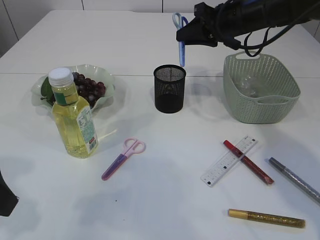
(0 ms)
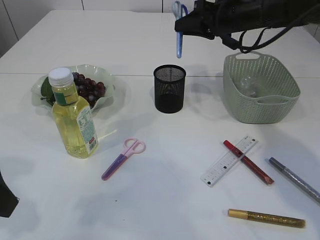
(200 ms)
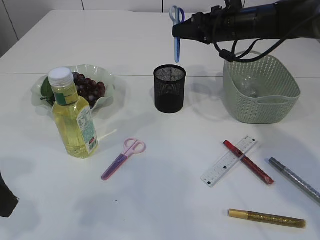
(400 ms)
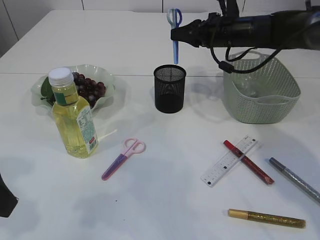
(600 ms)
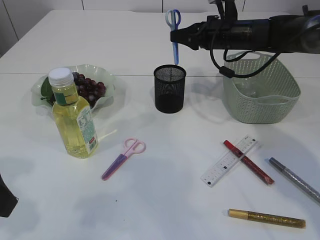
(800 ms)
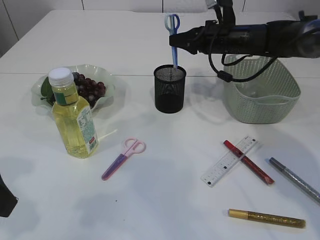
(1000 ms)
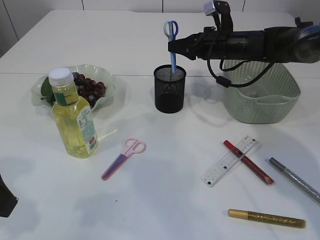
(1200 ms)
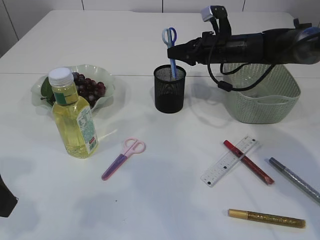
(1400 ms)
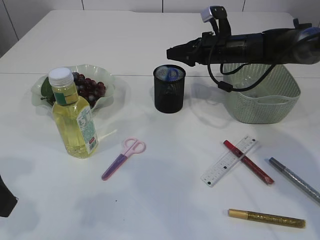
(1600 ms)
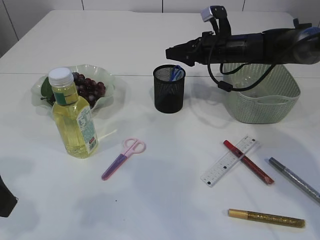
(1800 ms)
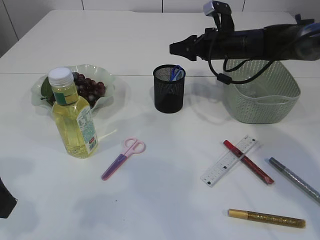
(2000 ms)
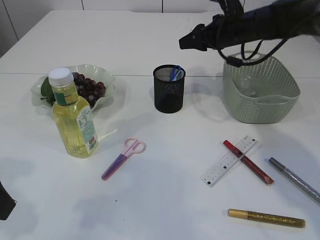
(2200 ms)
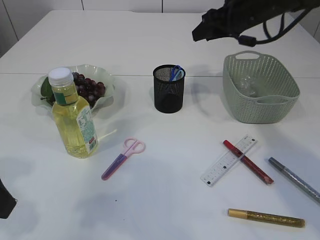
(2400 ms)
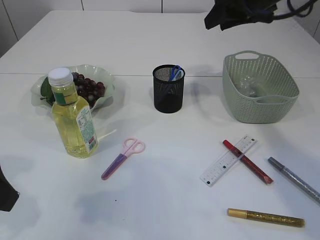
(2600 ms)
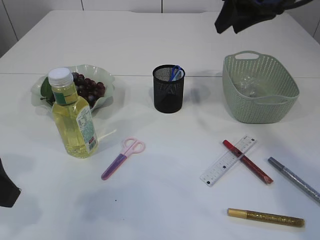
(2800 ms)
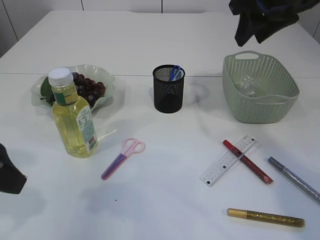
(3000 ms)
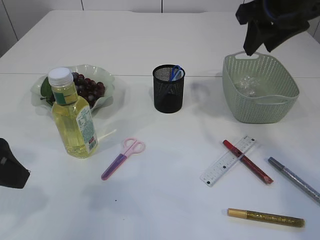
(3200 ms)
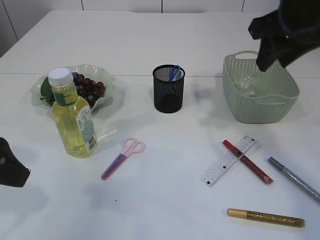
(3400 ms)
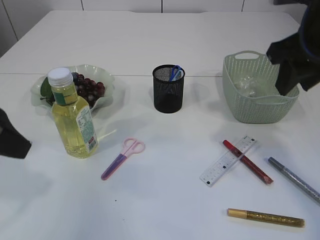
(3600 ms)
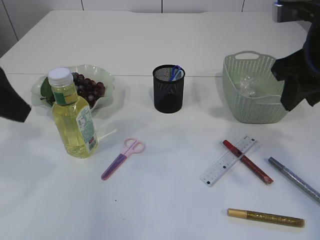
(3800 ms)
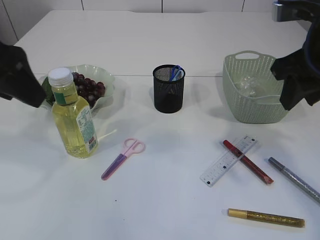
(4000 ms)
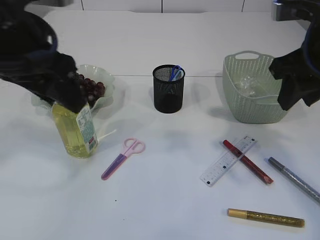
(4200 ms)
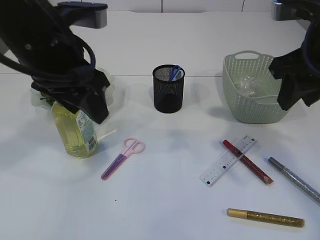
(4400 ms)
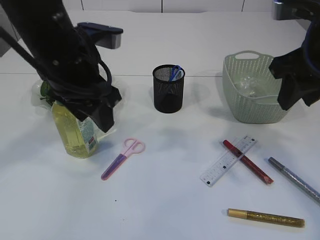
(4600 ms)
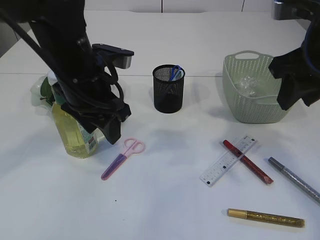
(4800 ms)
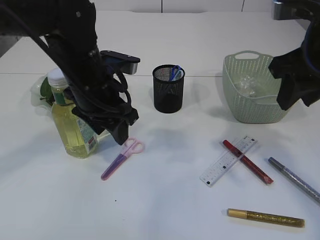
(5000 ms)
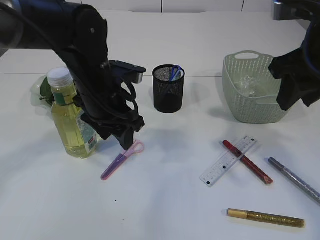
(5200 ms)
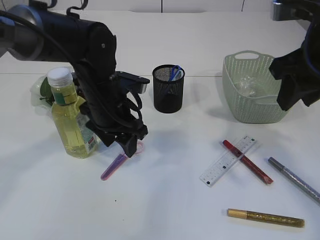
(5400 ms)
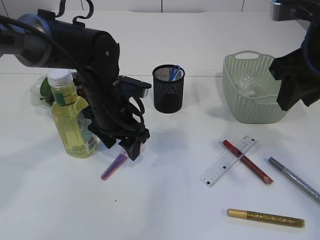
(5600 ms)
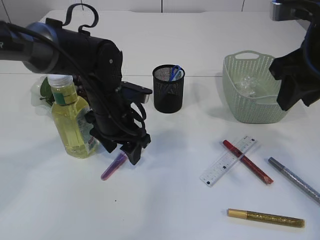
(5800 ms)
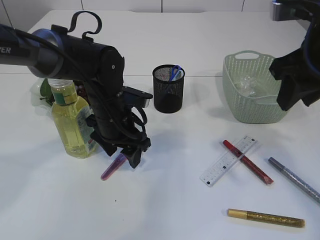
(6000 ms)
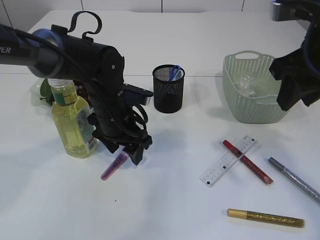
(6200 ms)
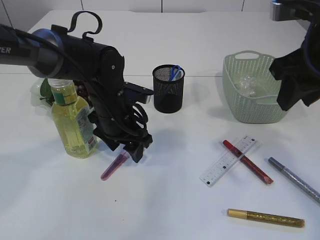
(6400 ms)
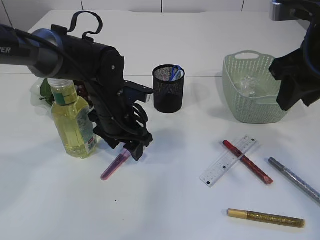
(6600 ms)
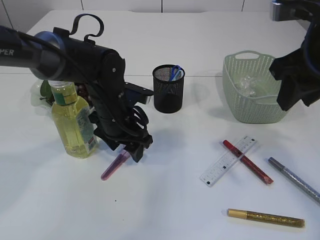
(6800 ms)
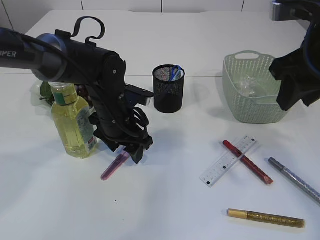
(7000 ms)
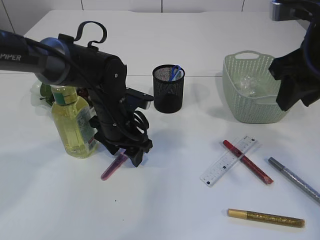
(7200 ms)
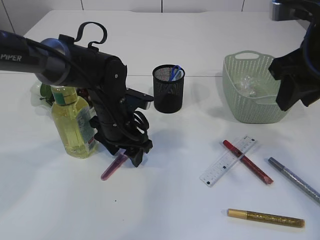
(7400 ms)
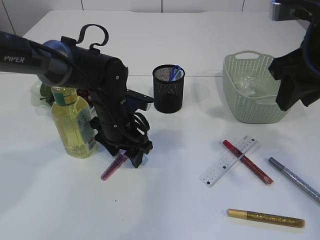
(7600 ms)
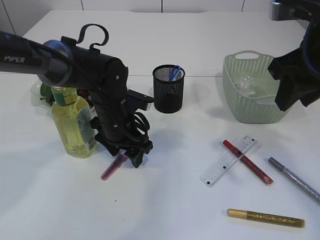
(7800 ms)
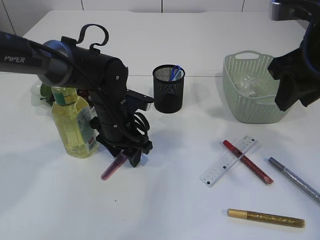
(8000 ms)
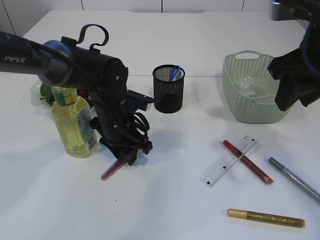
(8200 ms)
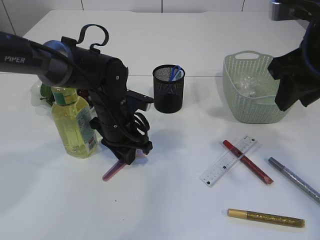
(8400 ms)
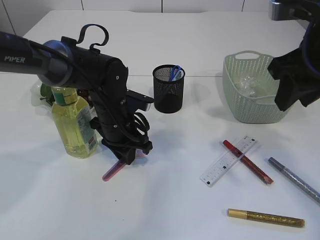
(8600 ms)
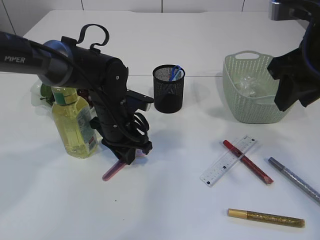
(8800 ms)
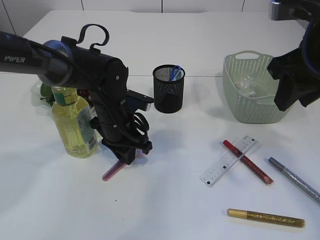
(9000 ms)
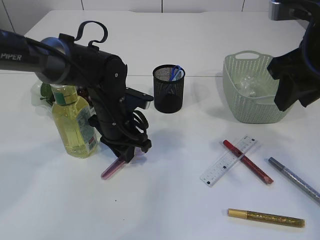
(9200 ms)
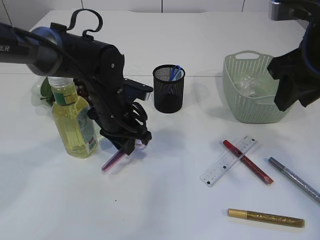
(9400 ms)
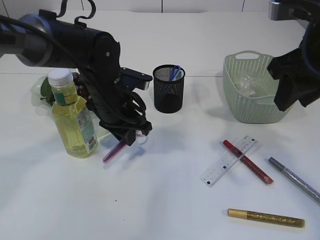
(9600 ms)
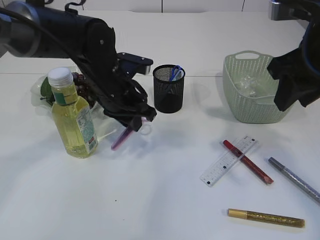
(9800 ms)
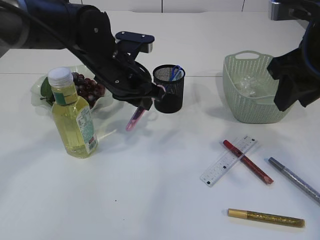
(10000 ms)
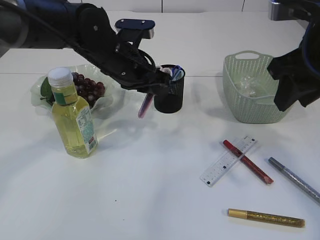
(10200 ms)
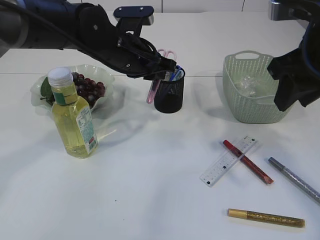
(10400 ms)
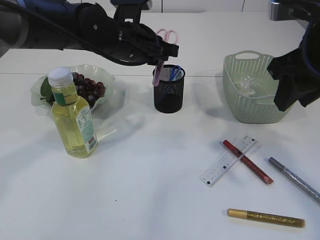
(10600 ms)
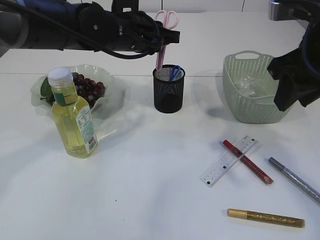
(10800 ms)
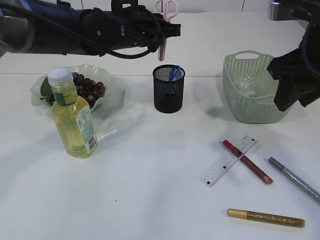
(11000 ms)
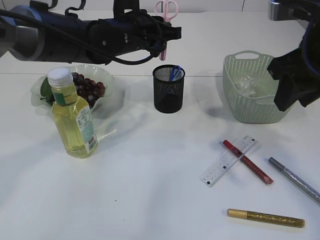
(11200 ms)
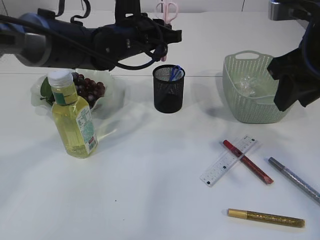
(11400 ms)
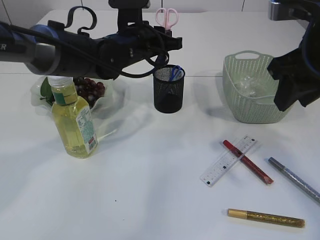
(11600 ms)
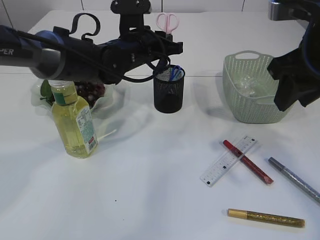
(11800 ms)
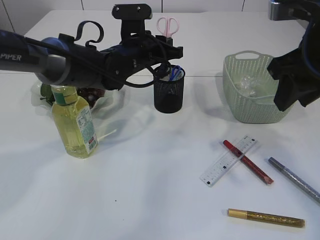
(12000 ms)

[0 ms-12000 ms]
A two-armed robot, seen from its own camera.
Step, 0 ms to 1800 ms: Place the blue knife into the pen holder.
Step, 2000 ms to 9800 ms: pick up the pink scissors.
0 ms to 1600 ms: The right gripper goes some 5 cm downward.
1600 ms to 3000 ms: The right gripper goes roughly 20 cm upward and backward.
3000 ms to 4400 ms: The right gripper moves backward, about 10 cm, while the left gripper shifts about 15 cm to the right and forward.
4400 ms to 6000 ms: The left gripper moves downward and forward, roughly 20 cm.
6000 ms to 7600 ms: The grippers move only a little.
7600 ms to 9000 ms: The left gripper closes its fingers.
9000 ms to 10400 ms: The left gripper is displaced upward by roughly 10 cm.
10400 ms to 12000 ms: The left gripper shifts by about 5 cm.

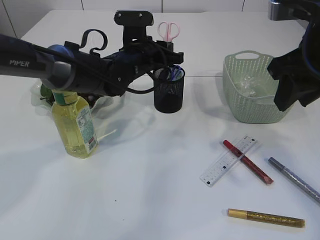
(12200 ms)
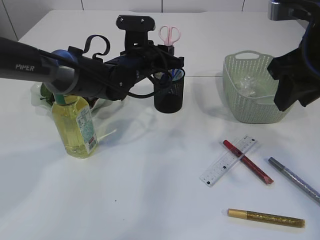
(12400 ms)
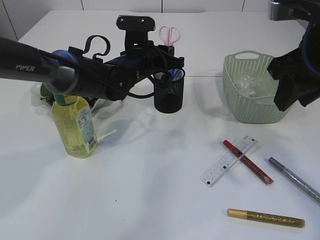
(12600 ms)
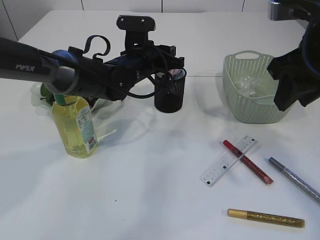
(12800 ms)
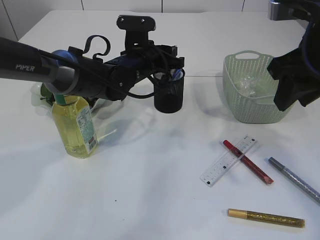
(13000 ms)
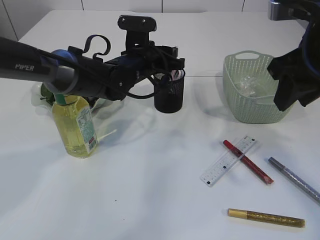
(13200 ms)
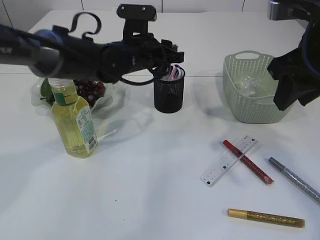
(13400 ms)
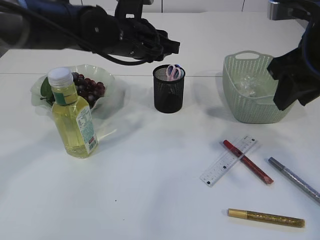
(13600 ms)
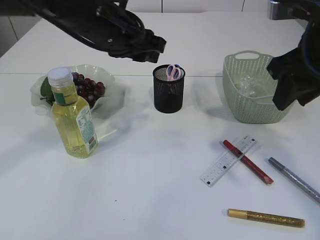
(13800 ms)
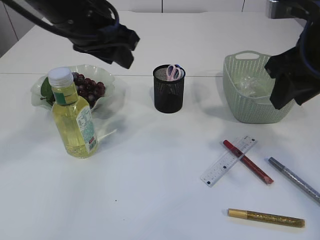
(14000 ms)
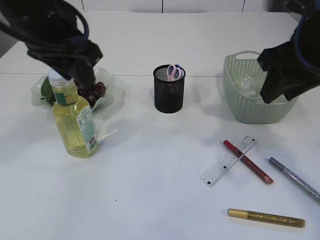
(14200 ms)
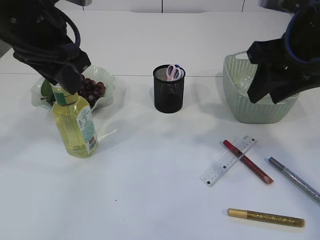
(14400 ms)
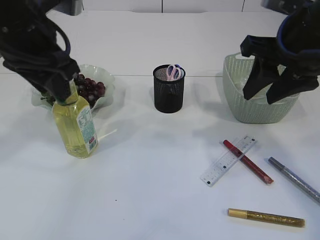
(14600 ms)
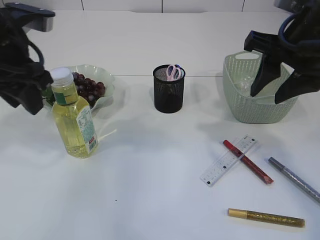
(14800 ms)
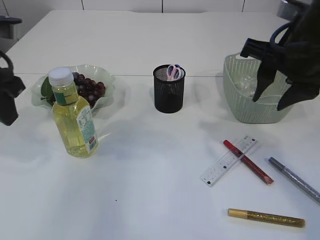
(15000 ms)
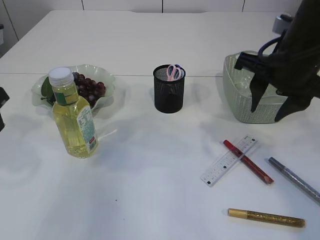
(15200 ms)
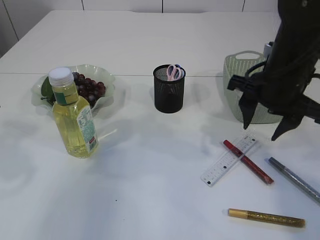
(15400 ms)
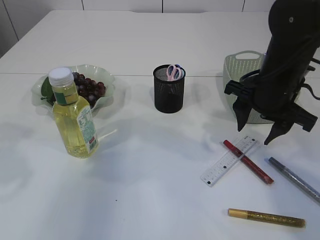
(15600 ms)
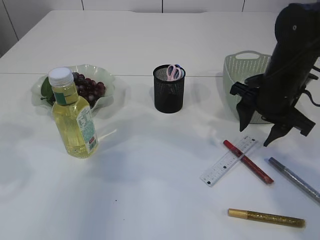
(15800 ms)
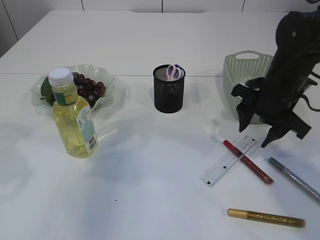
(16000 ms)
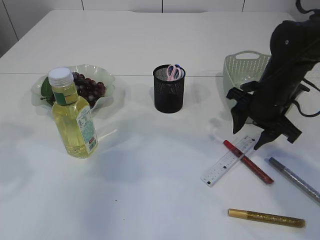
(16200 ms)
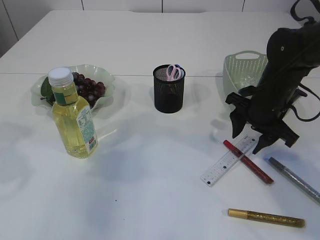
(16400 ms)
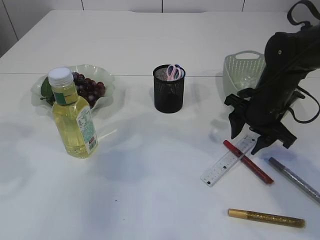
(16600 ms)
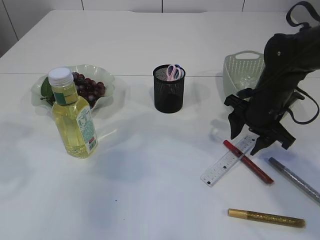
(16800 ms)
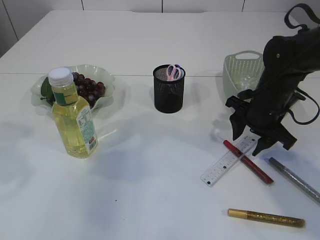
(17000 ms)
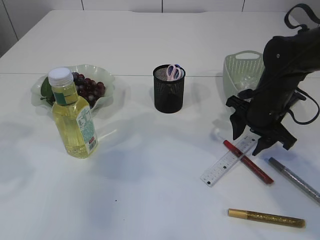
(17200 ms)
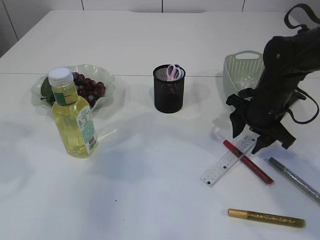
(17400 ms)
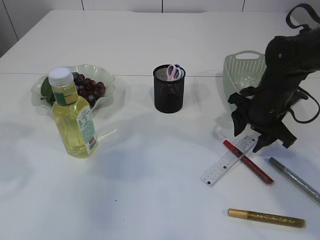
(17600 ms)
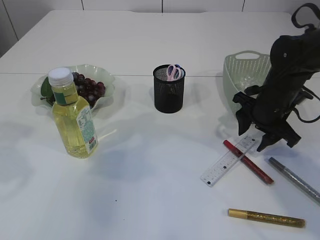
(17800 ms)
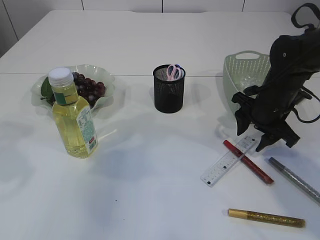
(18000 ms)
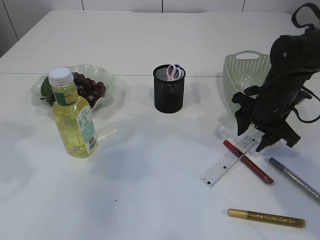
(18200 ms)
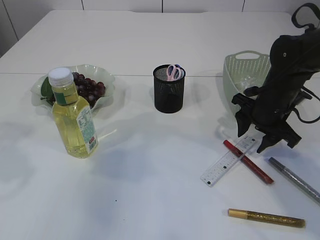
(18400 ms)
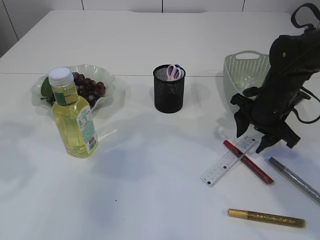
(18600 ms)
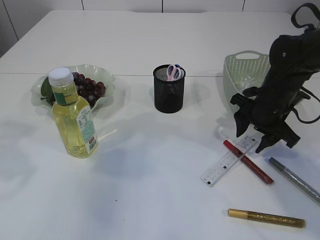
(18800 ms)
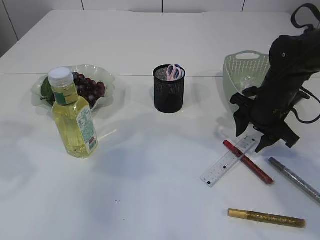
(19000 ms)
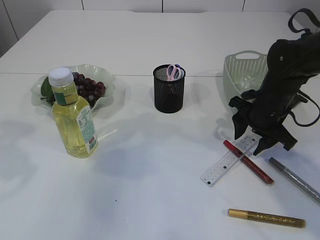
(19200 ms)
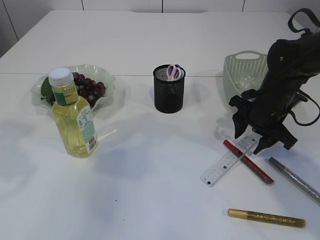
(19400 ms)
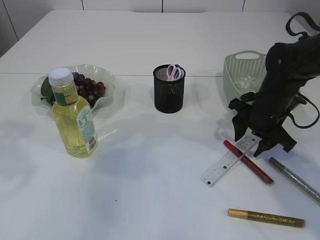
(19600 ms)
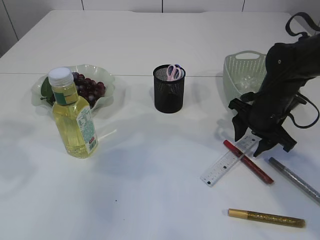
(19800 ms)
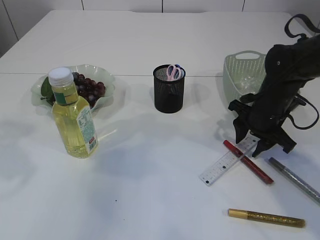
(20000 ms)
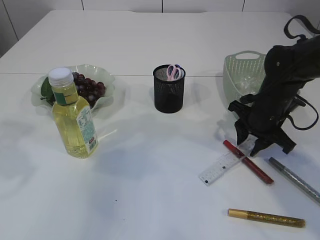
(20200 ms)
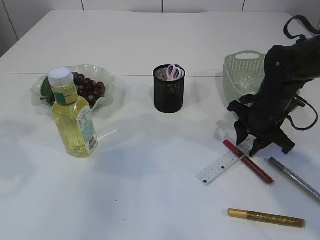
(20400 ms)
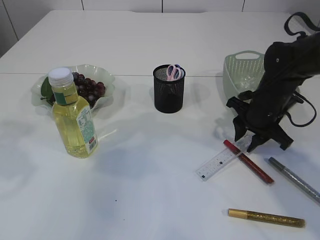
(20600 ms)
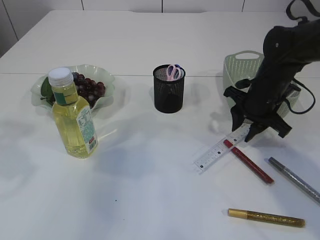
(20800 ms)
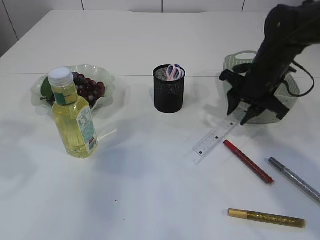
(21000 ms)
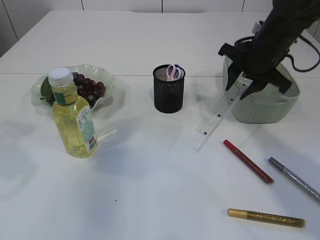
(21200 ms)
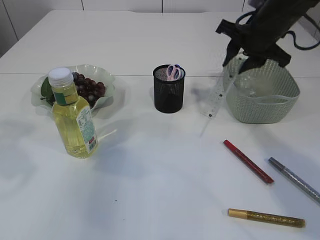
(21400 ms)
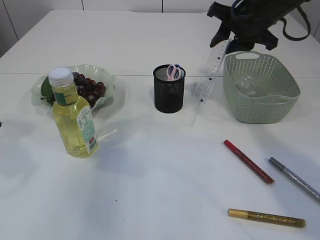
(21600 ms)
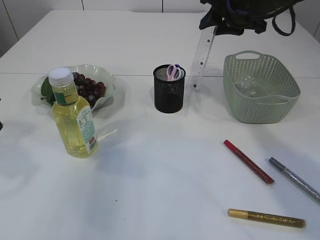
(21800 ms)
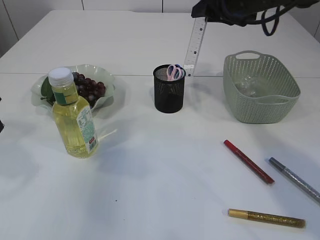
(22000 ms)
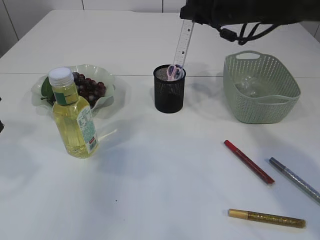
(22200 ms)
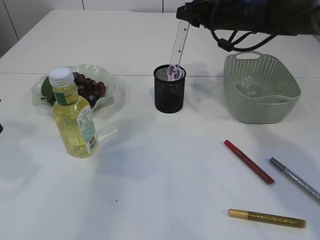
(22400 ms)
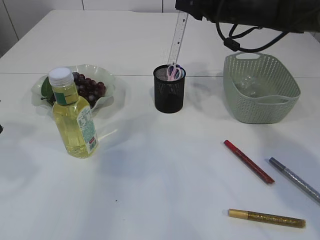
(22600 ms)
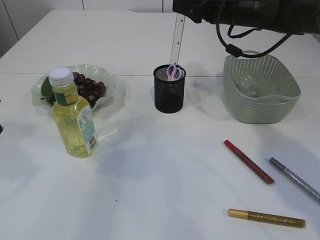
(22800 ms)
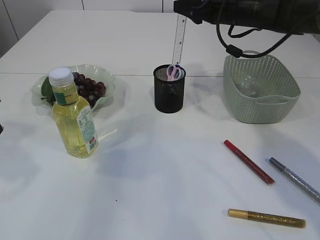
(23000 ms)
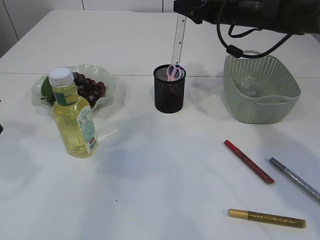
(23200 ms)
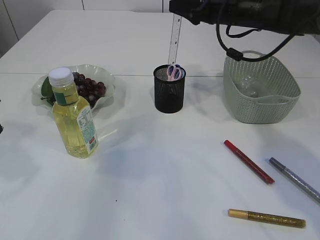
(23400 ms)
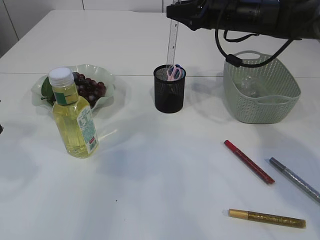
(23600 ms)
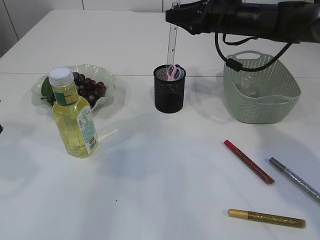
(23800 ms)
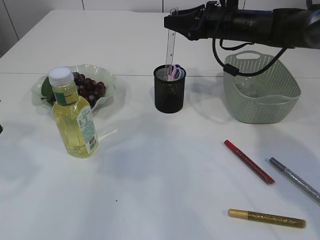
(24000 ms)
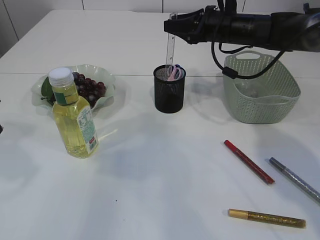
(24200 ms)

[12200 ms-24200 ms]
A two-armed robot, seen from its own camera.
Step, 13800 ms to 21000 ms: pick up the ruler.
12200 ms to 13800 ms: The left gripper shifts about 10 cm upward and backward.
13800 ms to 15200 ms: The right gripper ends up approximately 5 cm from where it was, while the left gripper travels to the left and backward by roughly 20 cm.
15200 ms to 16600 ms: The right gripper shifts some 15 cm downward and forward.
16600 ms to 18200 ms: The grippers make only small movements.
18200 ms to 19800 ms: Both grippers stay about where they are.
19800 ms to 21200 ms: The right gripper shifts approximately 10 cm upward.
21200 ms to 22600 ms: The right gripper heads forward, covering approximately 10 cm.
